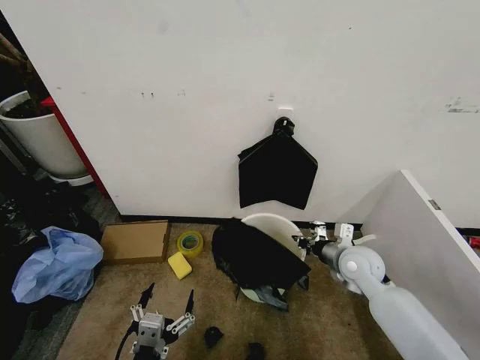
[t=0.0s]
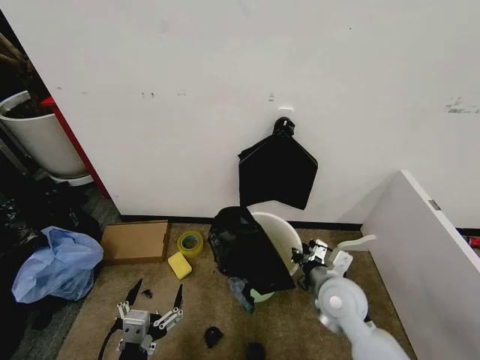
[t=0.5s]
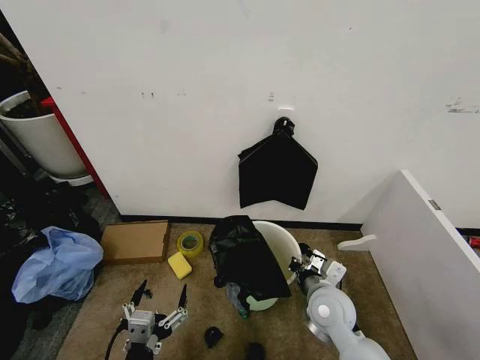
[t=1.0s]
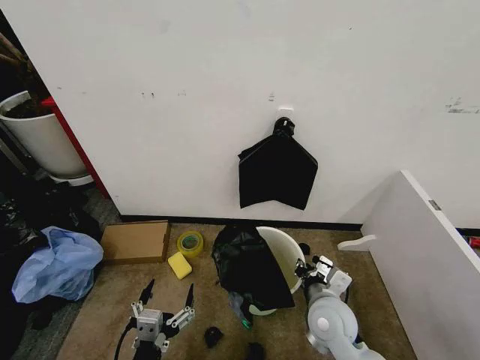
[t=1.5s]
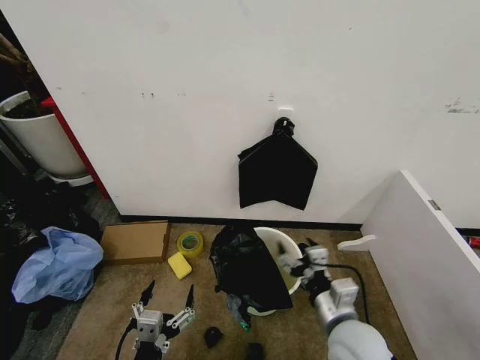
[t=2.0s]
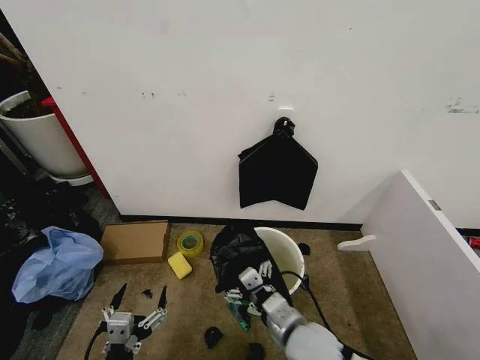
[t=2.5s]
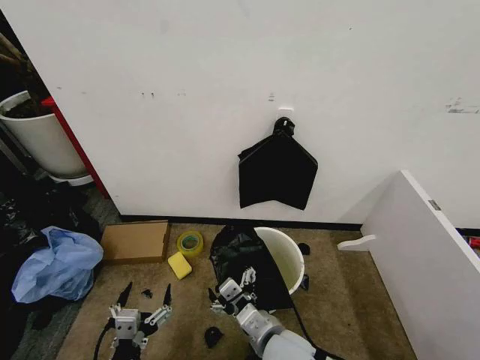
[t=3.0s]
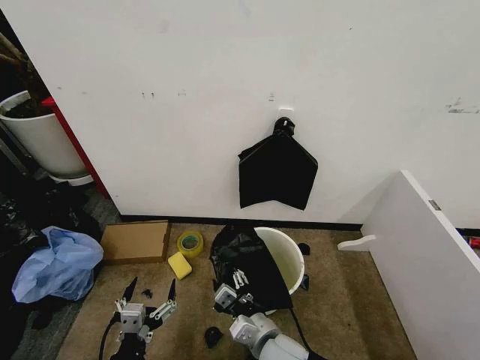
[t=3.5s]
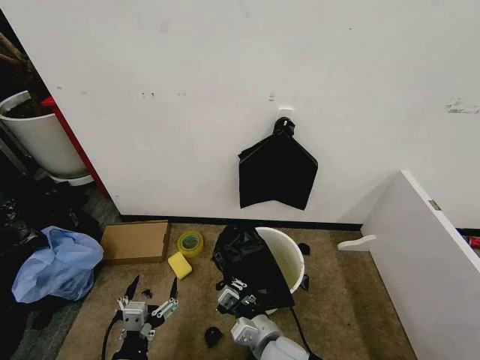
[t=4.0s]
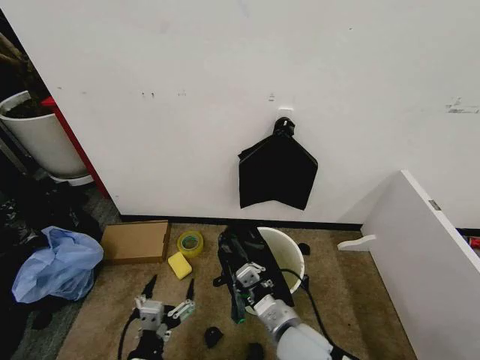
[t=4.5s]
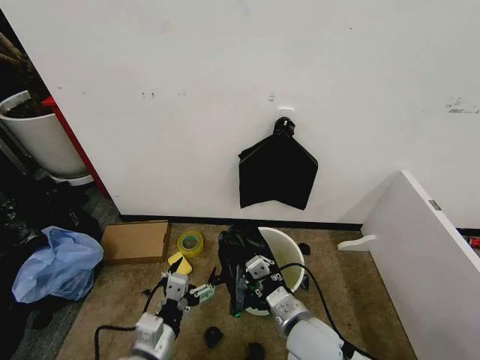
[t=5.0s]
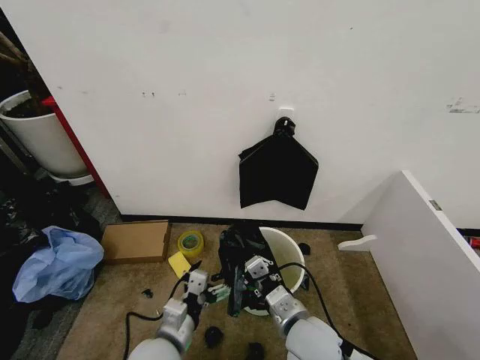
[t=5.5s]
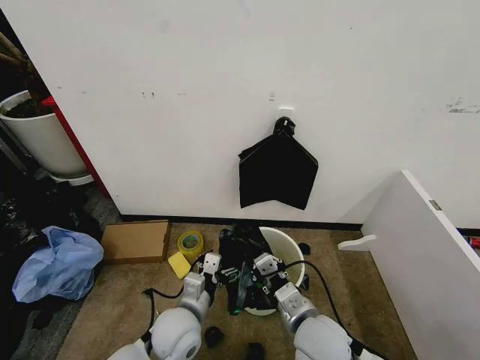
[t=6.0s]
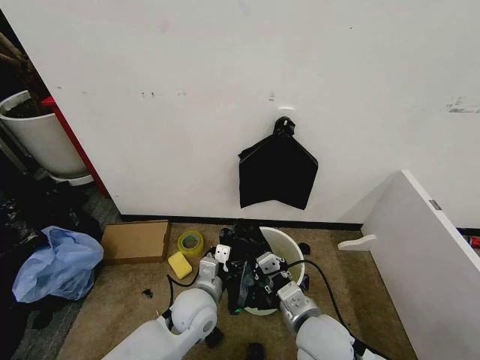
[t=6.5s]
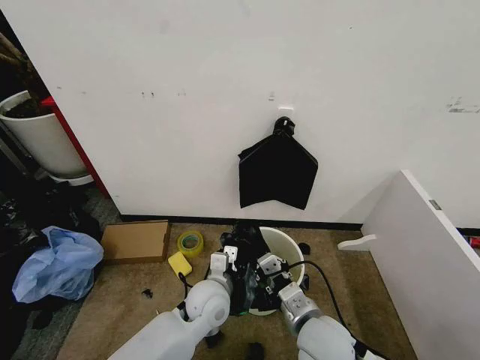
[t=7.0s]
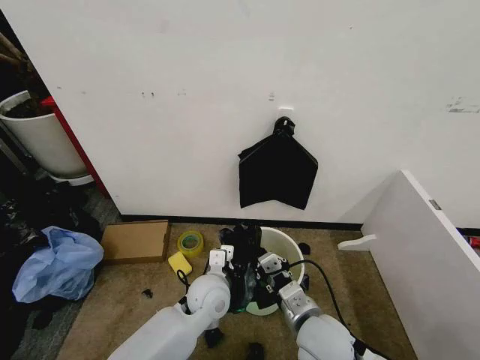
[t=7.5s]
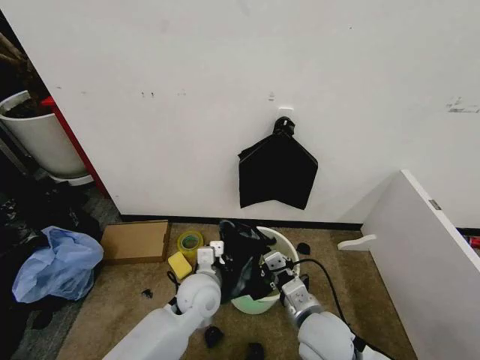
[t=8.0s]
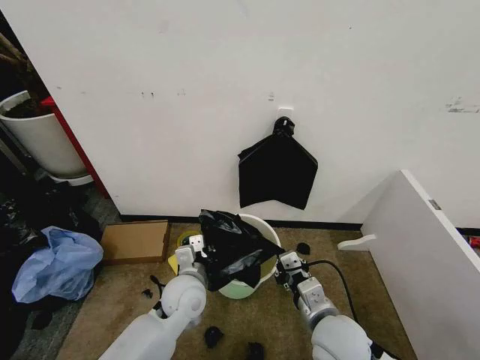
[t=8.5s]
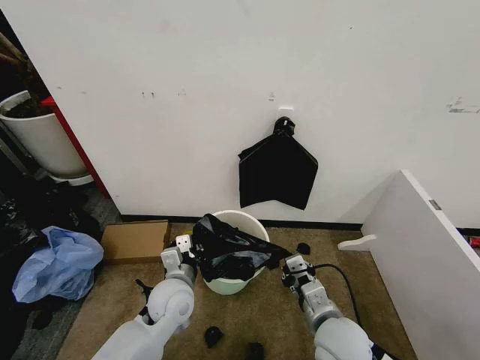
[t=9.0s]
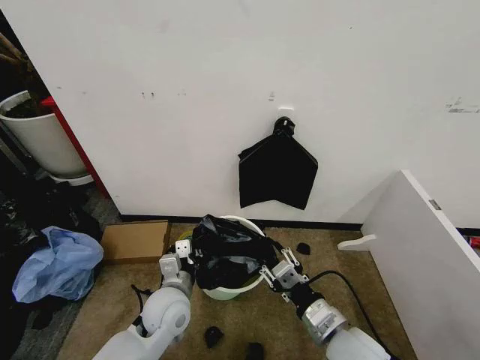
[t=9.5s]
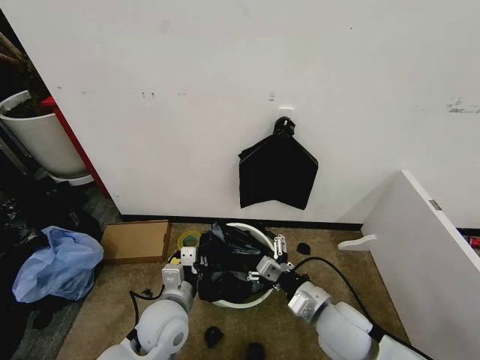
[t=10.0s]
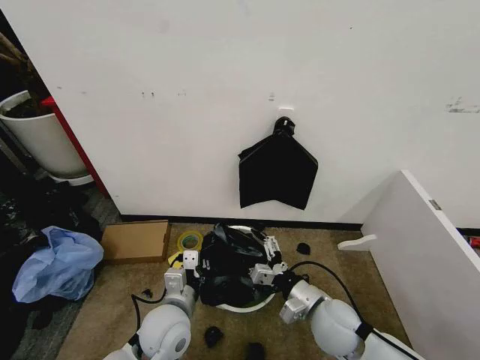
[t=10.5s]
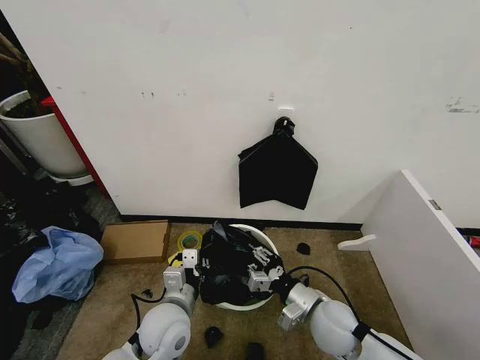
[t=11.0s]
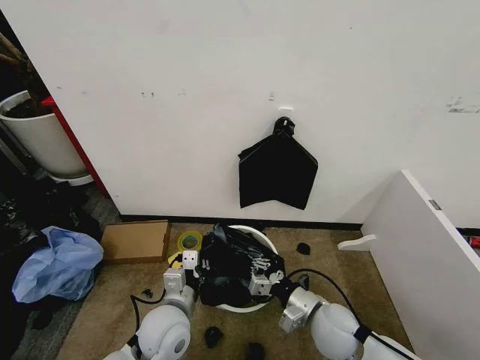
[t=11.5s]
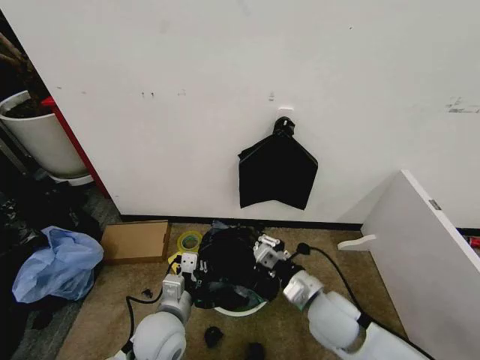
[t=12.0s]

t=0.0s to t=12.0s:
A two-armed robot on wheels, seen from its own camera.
Task of the whole recording: Place the garbage bag over the trash bin.
t=0.0s to t=2.0s: The right gripper moves backward and to the left, some 20 cm, and opens its fingers.
t=2.0s to t=4.0s: The right gripper goes about 15 cm to the left and downward, and closes.
t=4.0s to t=6.0s: The left gripper goes approximately 20 cm forward and to the right; the right gripper is displaced upward and to the right by about 10 cm.
t=6.0s to t=8.0s: The left gripper is displaced forward by some 5 cm, and closes up.
t=8.0s to t=10.0s: The left gripper goes approximately 10 cm to the left and backward; the right gripper opens its fingers.
t=10.0s to t=12.0s: The right gripper closes its fingers.

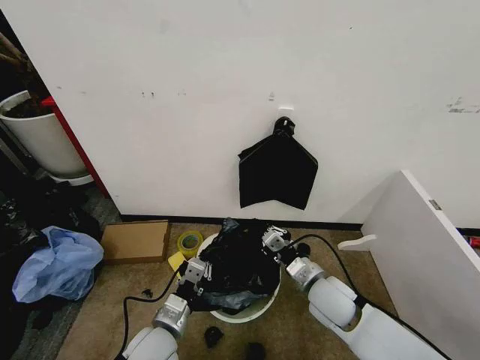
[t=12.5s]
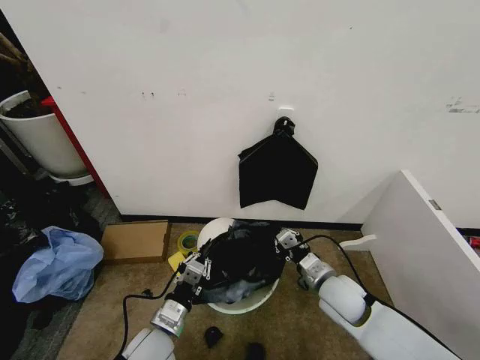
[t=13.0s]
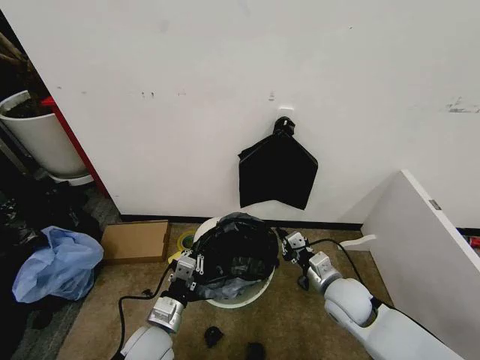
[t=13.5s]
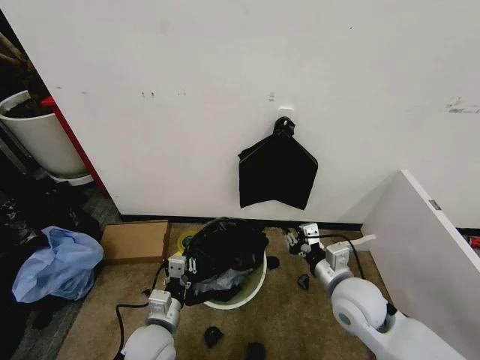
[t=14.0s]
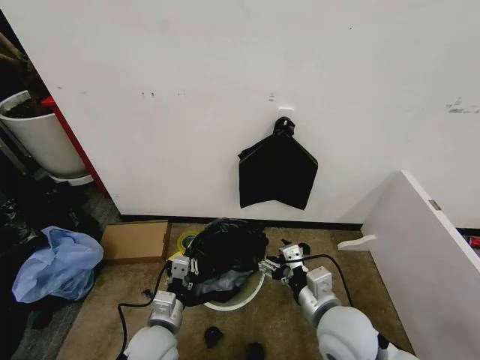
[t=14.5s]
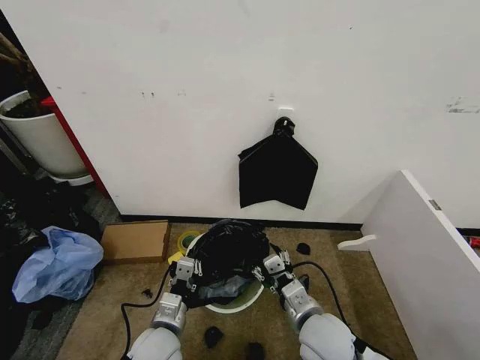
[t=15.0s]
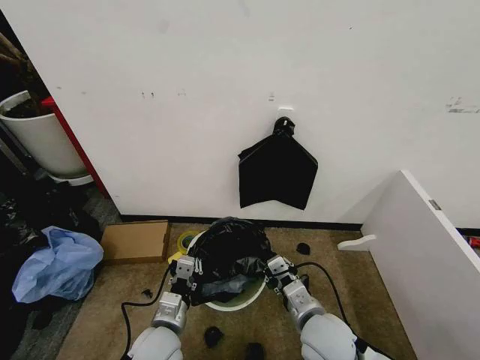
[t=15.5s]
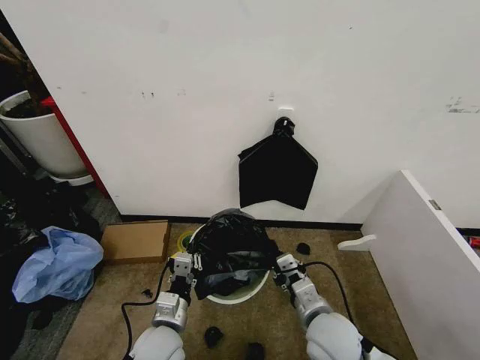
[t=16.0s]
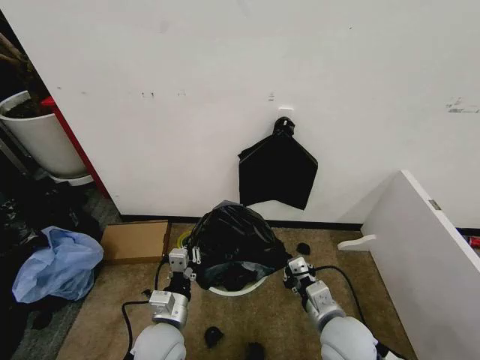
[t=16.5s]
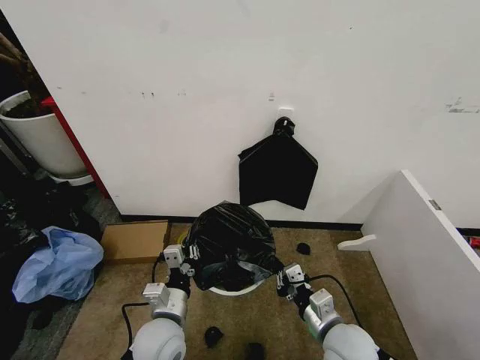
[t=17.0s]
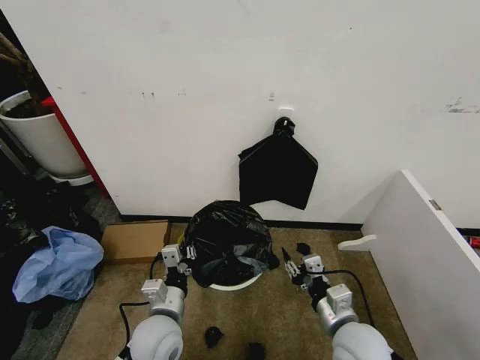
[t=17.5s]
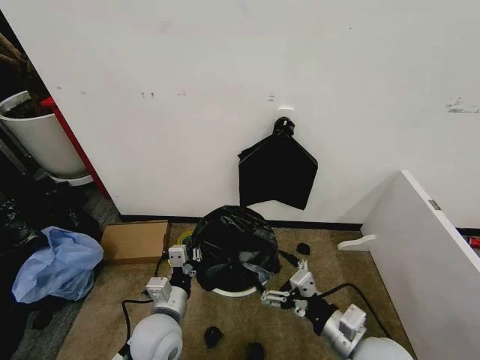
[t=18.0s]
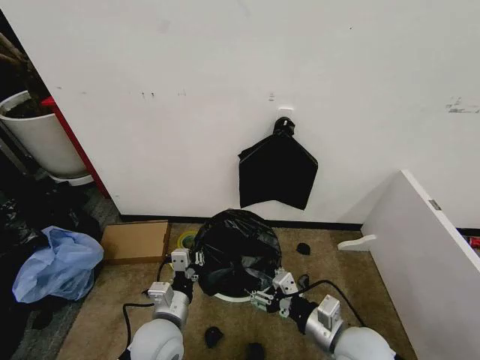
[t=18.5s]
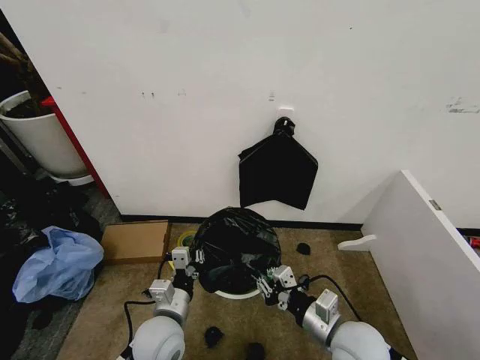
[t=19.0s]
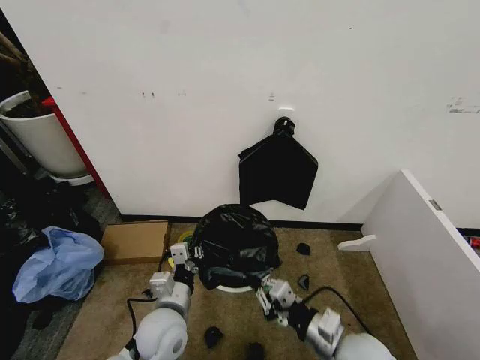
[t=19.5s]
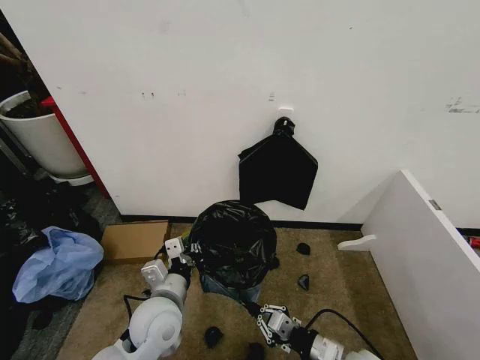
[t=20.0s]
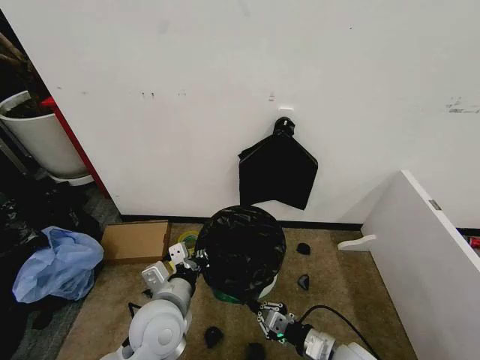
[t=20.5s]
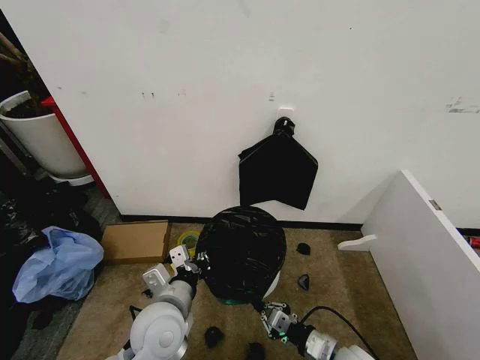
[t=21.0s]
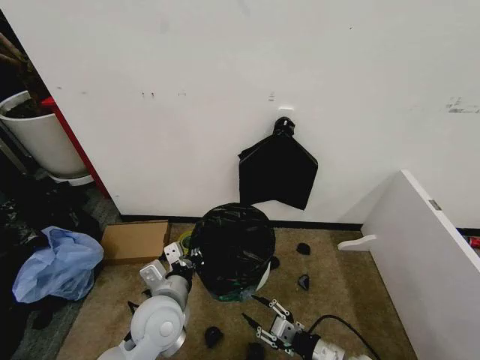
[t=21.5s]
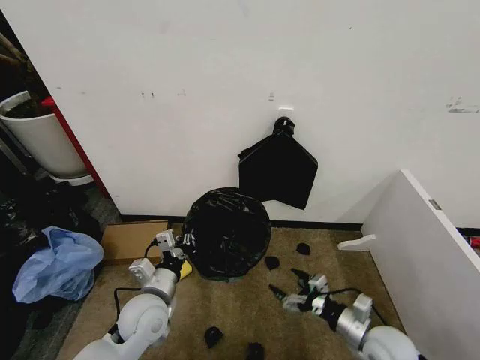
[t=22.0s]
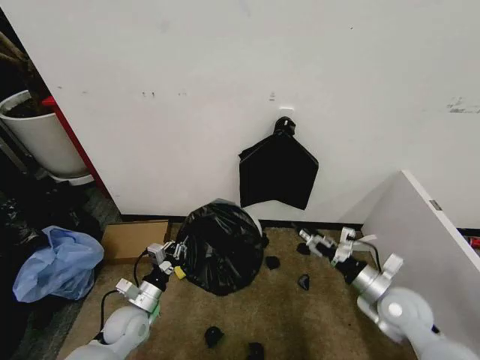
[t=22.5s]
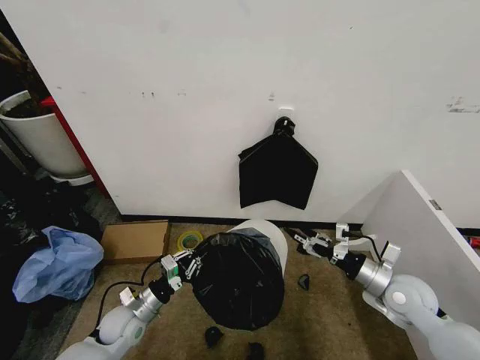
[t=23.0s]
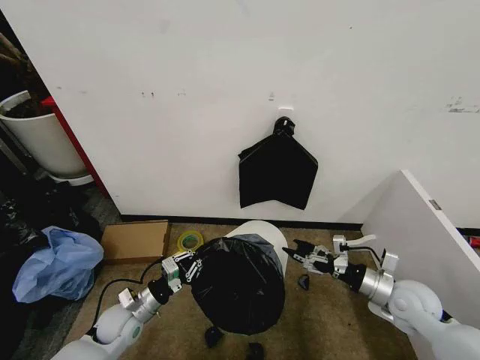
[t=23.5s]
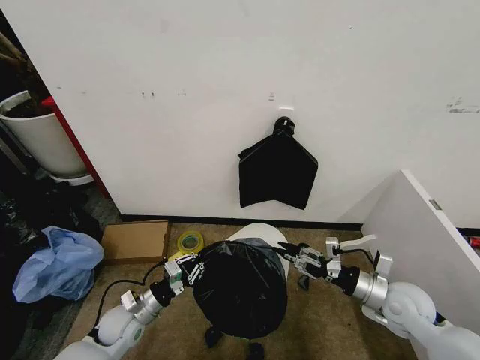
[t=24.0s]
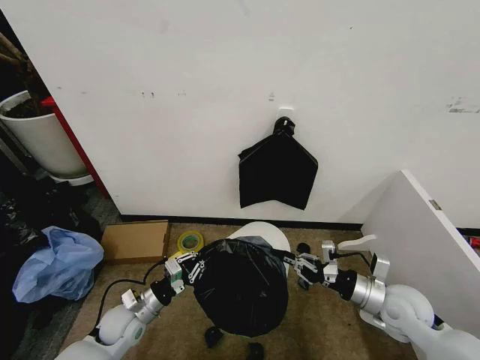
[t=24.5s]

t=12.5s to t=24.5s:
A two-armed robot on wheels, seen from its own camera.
Task of the whole recording: Place the garbage bag over the trash bin.
t=12.5s to t=14.5s: The right gripper moves backward and upward, approximately 10 cm, and opens up.
t=14.5s to t=16.5s: The right gripper heads downward, covering roughly 5 cm, and closes up.
t=16.5s to t=18.5s: The right gripper opens.
t=18.5s to t=20.5s: The left gripper moves upward, some 5 cm. The right gripper goes some 10 cm downward, and closes.
t=20.5s to t=22.5s: The left gripper shifts roughly 20 cm downward and to the left; the right gripper travels to the right, forward and upward by about 15 cm, and opens.
t=22.5s to t=24.5s: The right gripper closes.

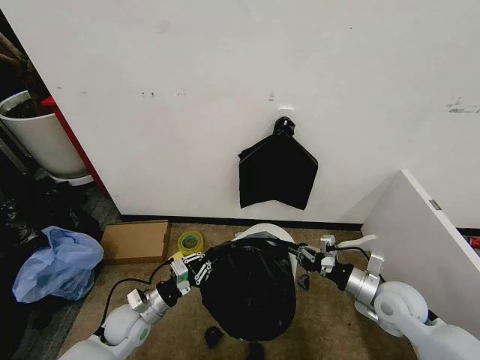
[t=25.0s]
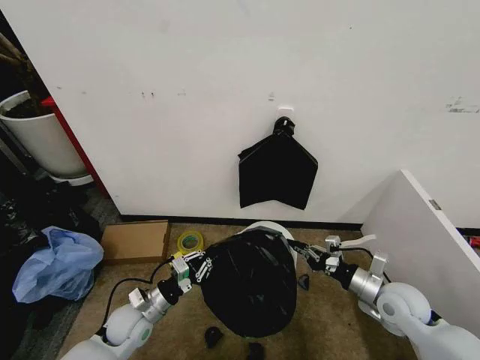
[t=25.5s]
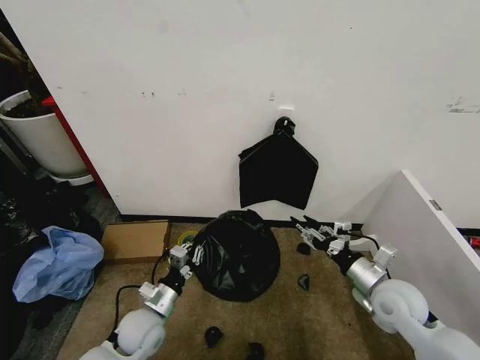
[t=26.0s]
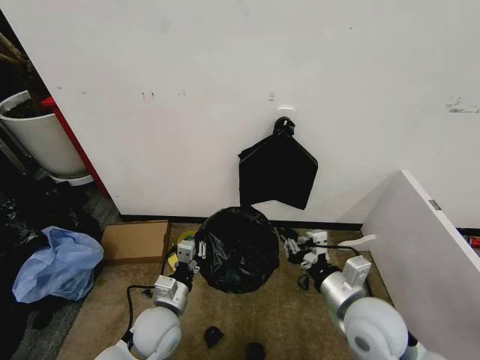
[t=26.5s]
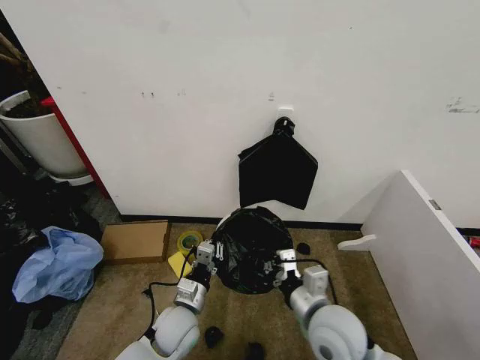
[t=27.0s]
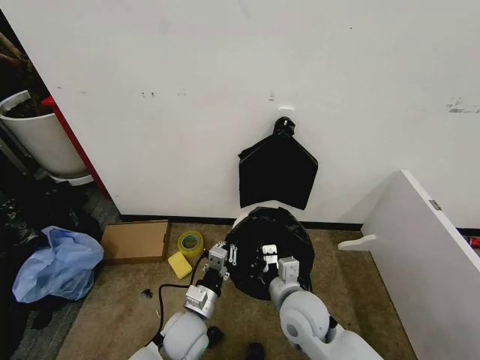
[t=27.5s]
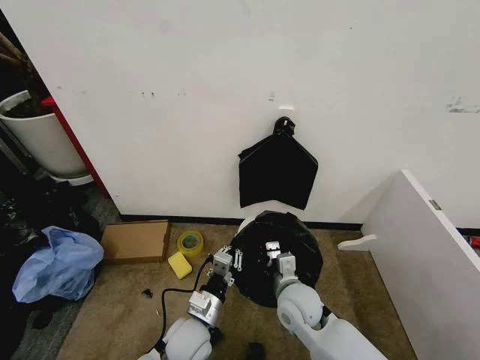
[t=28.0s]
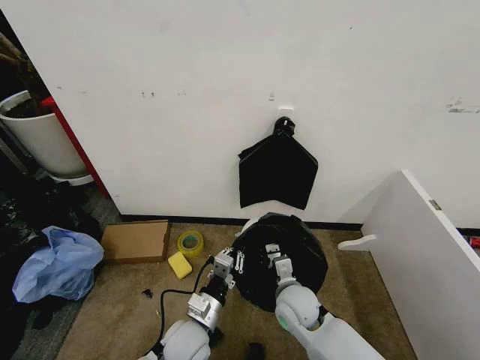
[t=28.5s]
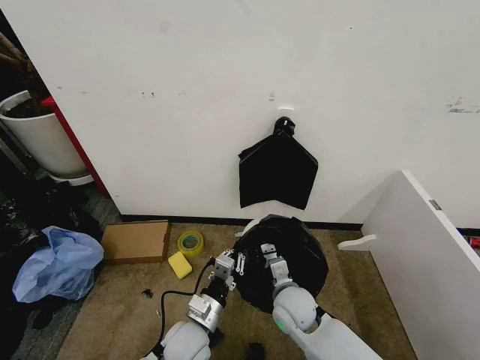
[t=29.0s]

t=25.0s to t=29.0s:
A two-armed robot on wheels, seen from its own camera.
Task of the whole recording: Place the garbage bag over the trash bin.
t=25.0s to t=27.0s: The left gripper shifts roughly 15 cm to the right. Meanwhile the right gripper moves to the left, some 15 cm, and opens, then closes once more.
t=27.0s to t=29.0s: The right gripper goes some 10 cm downward and forward.
